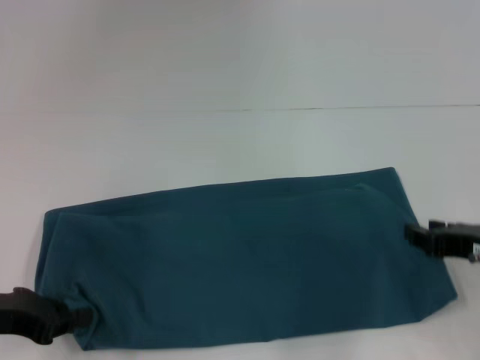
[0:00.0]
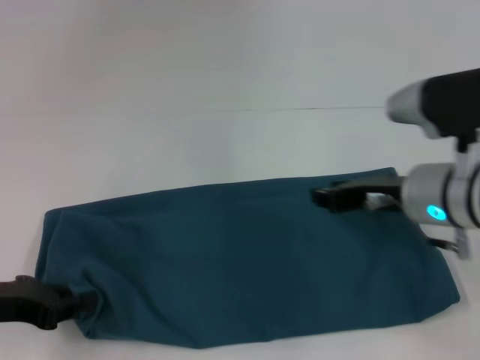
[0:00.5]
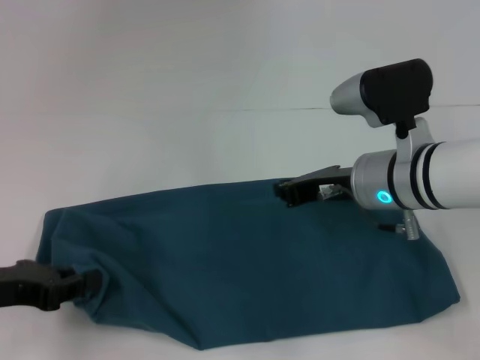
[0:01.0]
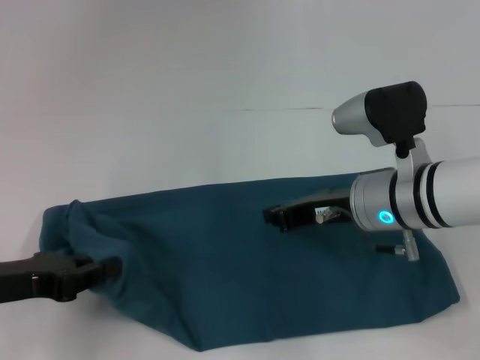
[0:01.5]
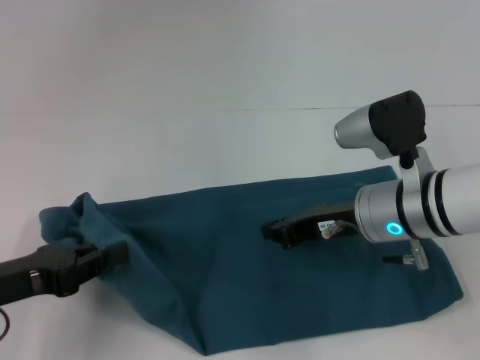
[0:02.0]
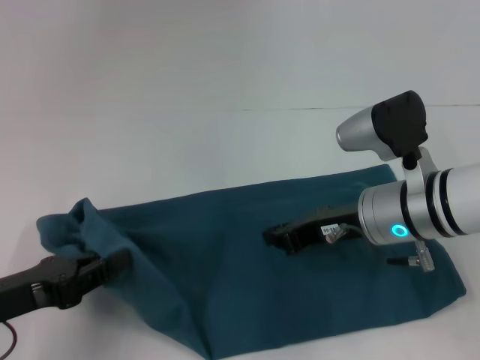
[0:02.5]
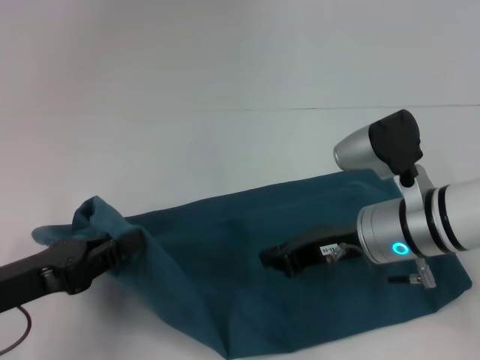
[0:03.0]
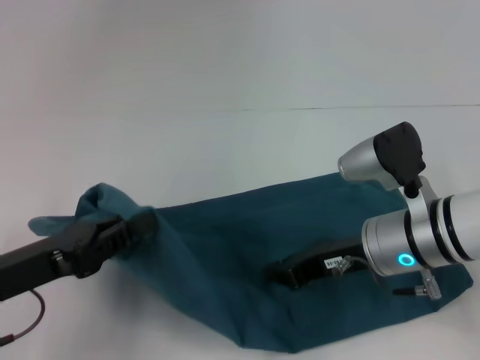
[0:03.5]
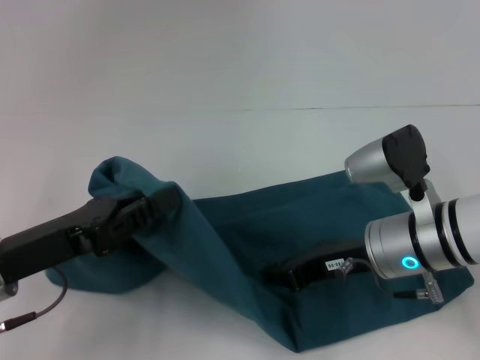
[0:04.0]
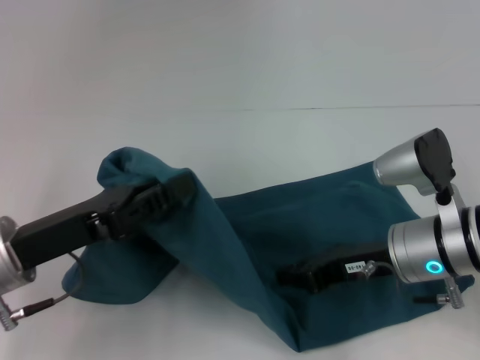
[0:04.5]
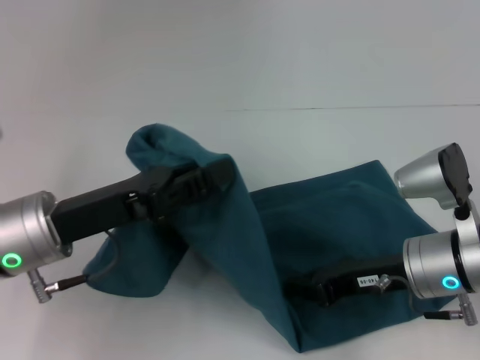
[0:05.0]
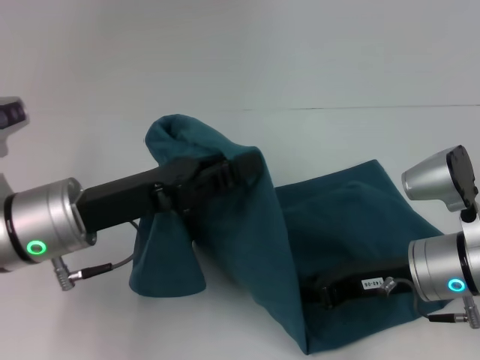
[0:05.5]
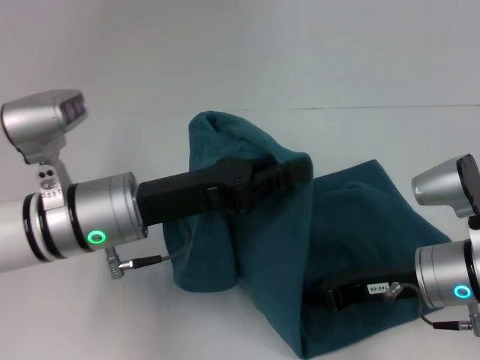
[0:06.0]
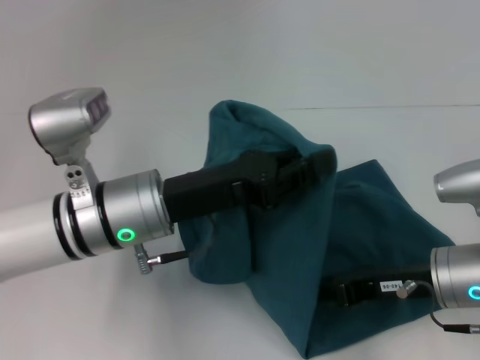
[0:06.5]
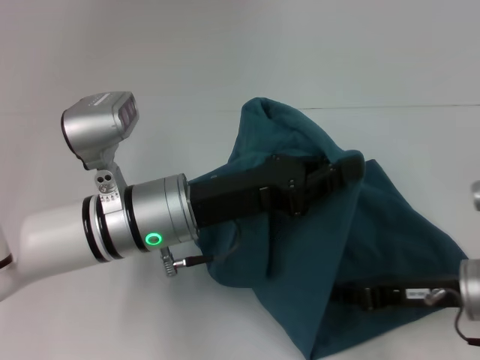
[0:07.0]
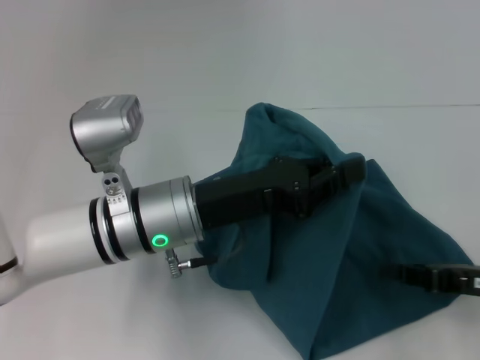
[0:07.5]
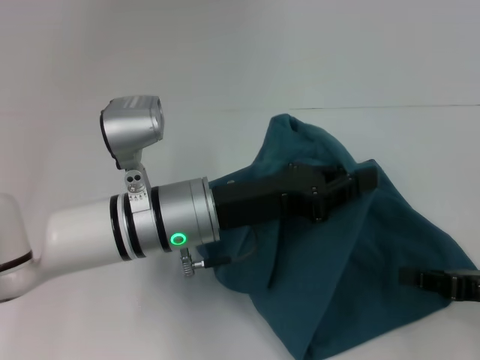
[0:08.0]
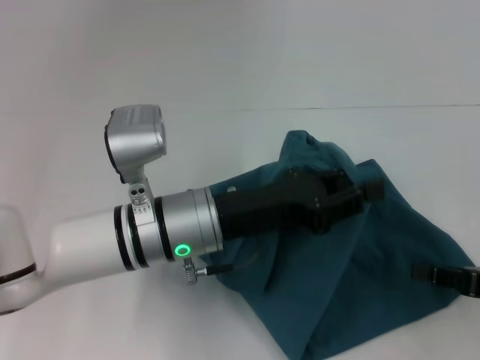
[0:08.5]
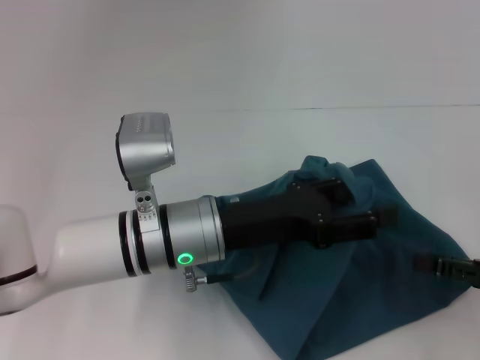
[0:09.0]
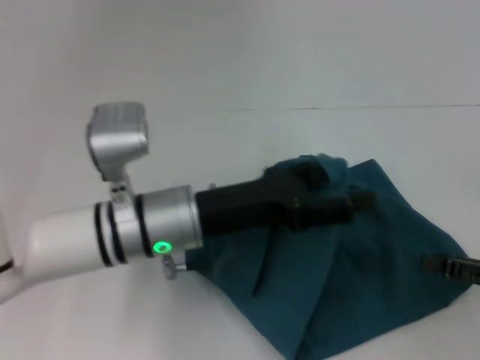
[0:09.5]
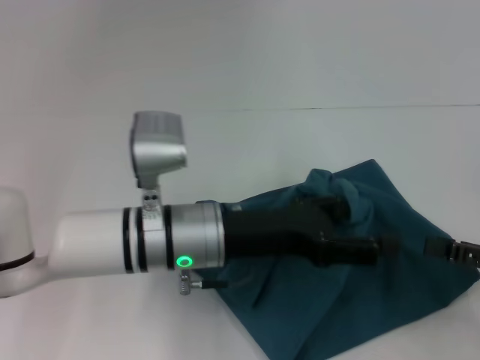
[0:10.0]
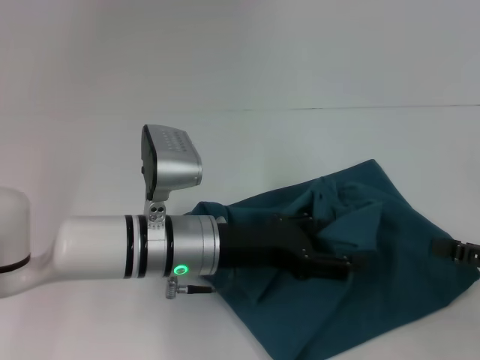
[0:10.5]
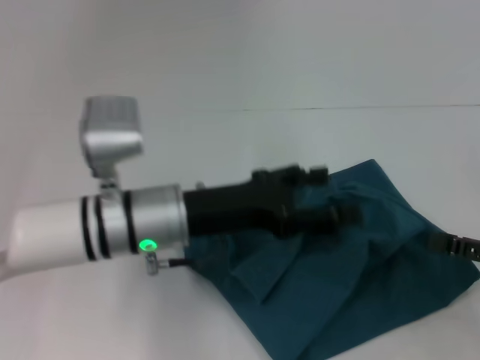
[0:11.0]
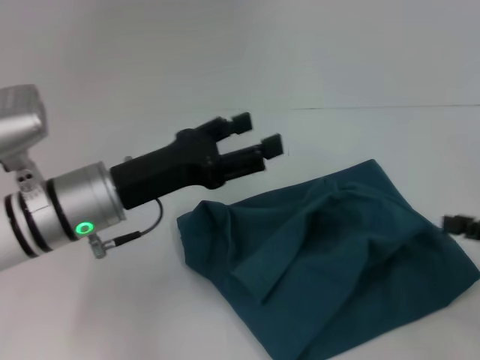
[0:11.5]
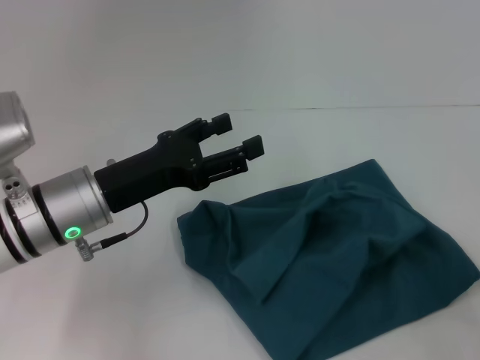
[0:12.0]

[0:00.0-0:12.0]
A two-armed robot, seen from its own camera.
Step, 0.5 to 7.0 s: Press the middle of the clothes with your right hand.
Step, 7.5 to 11.5 s: Fold the clothes to the left.
0.0 to 2.0 s: The right gripper shifts approximately 15 cm to the left and forward, and closes.
4.0 to 6.0 s: The right gripper shifts by roughly 5 cm, while the left gripper shifts roughly 10 cm to the right and forward.
6.0 to 8.0 s: The left gripper shifts some 5 cm to the right. Meanwhile the right gripper travels to the right by approximately 10 cm.
8.0 to 10.0 s: The right gripper opens up. The left gripper opens its fingers.
10.0 to 12.0 s: The left gripper heads to the left, covering some 10 cm, while the right gripper changes place by some 5 cm.

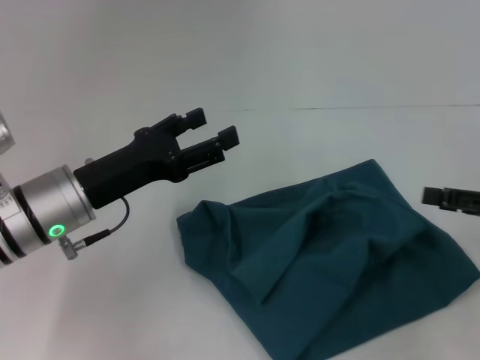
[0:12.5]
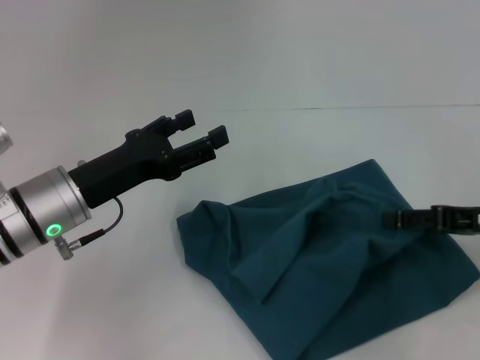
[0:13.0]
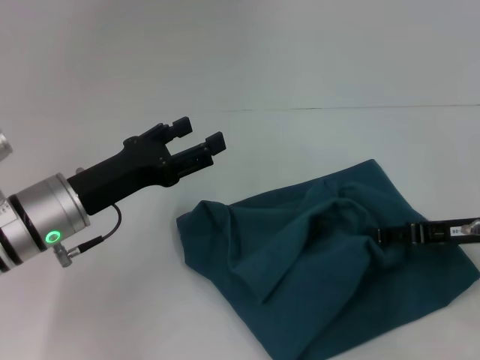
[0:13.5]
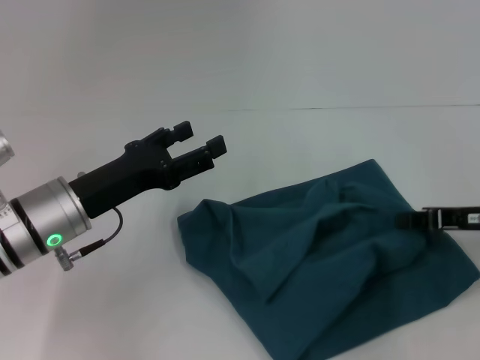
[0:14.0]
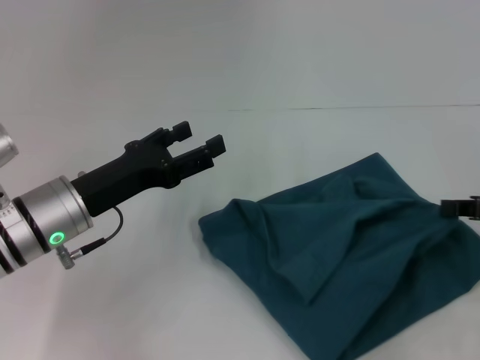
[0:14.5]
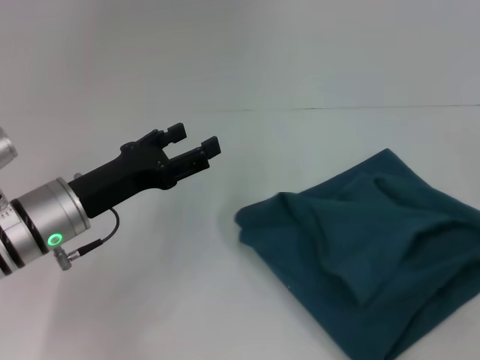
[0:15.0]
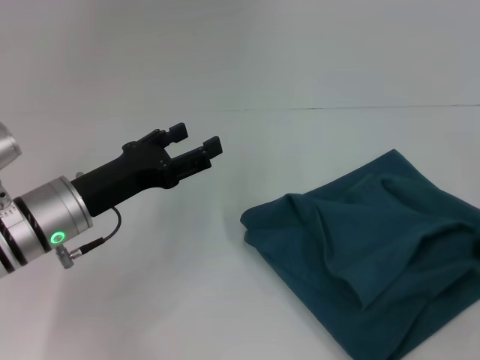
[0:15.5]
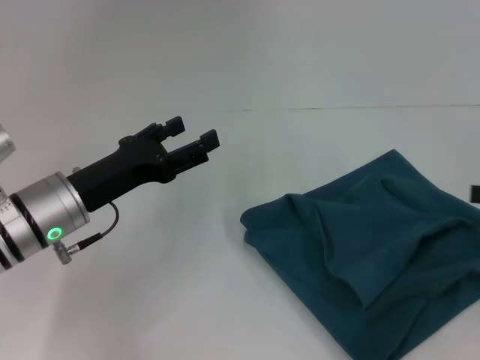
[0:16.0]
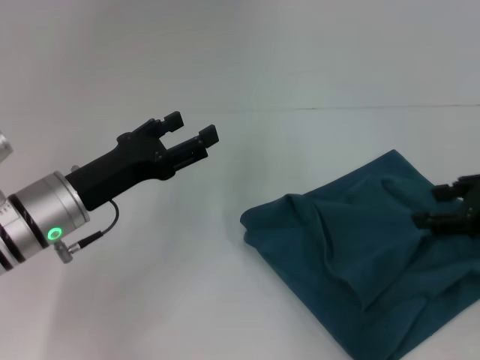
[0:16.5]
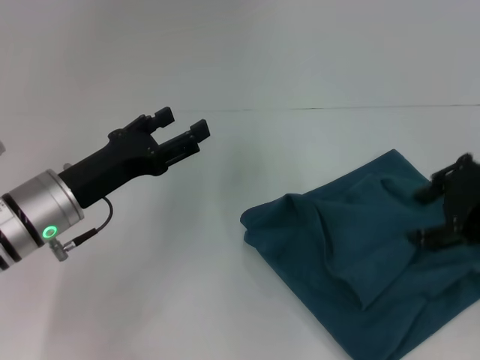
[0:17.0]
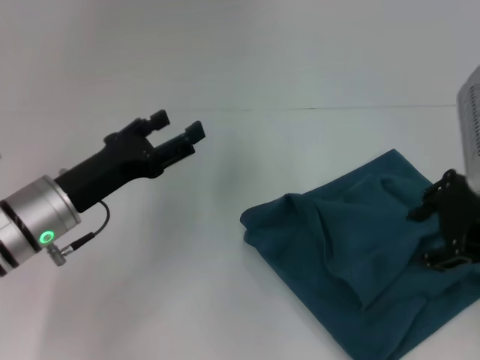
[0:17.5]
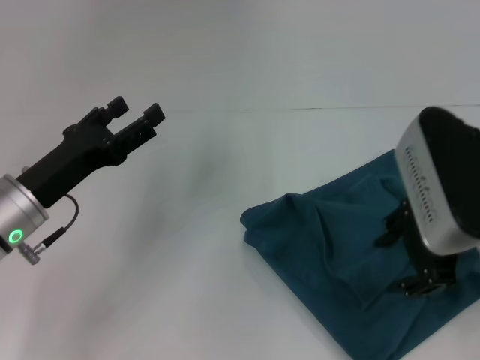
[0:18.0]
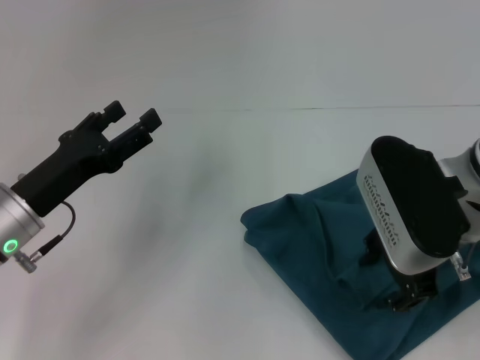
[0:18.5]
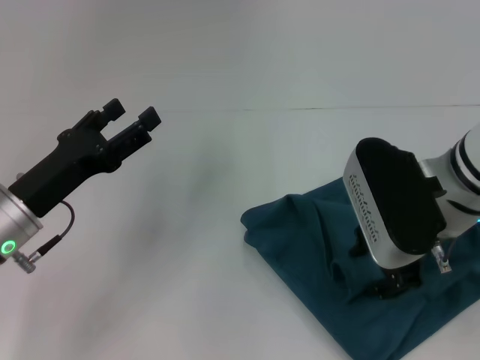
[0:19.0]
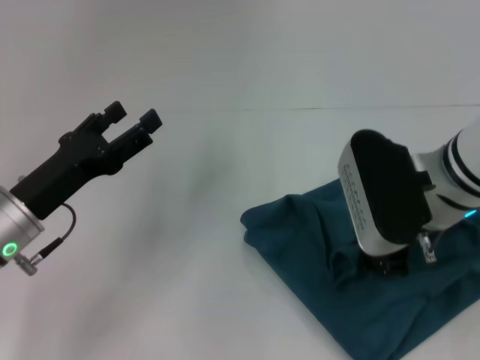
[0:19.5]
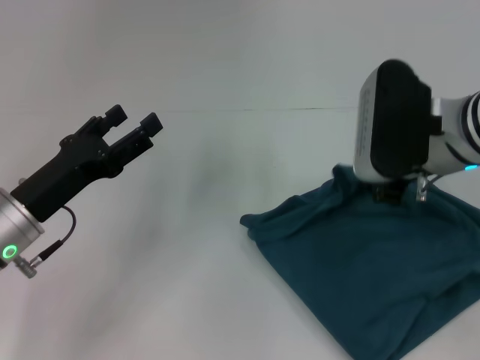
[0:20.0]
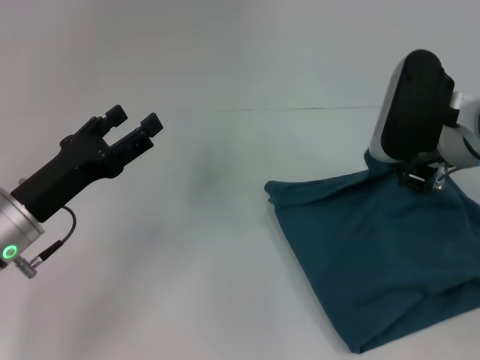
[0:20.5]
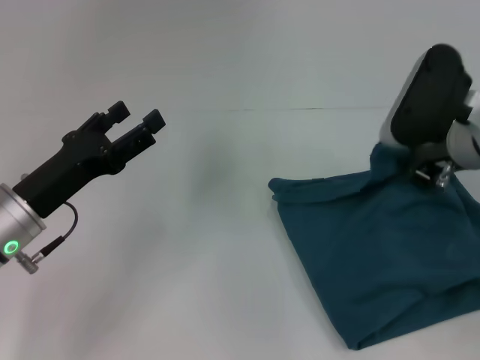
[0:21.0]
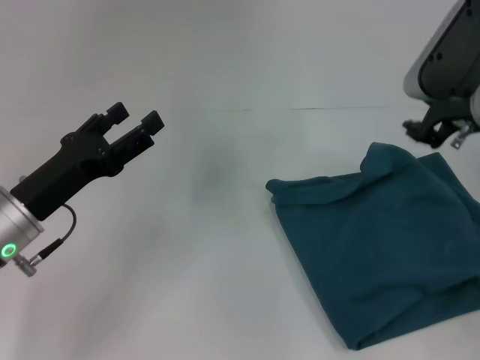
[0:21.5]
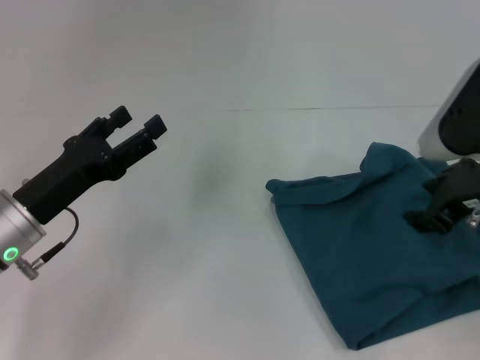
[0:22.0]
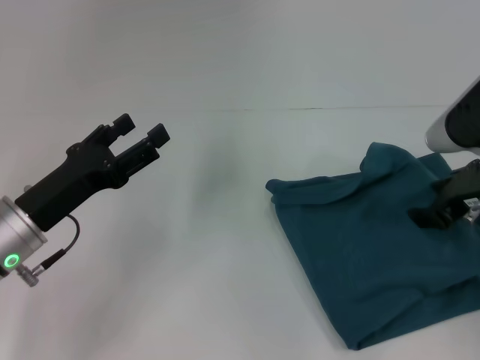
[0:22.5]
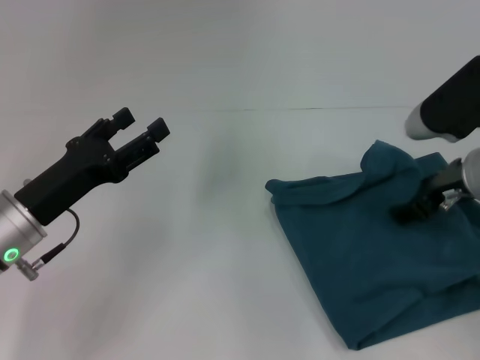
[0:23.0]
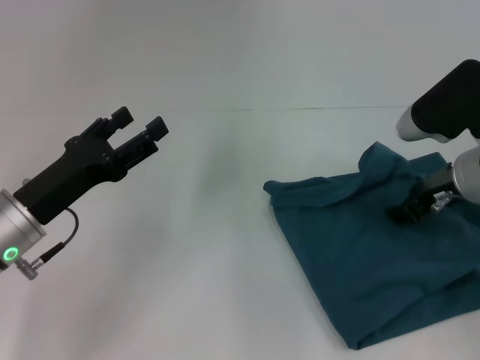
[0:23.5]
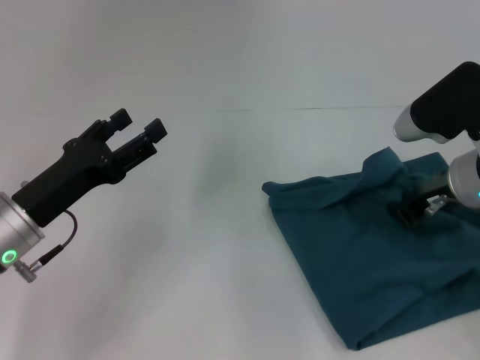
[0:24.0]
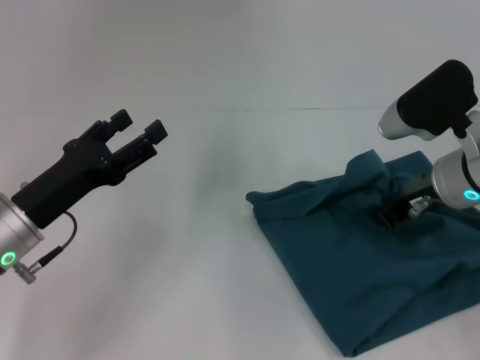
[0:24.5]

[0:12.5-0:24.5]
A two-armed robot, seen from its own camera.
12.5 to 14.5 s: The right gripper closes up.
14.5 to 16.5 s: The right gripper goes roughly 5 cm upward, and opens up.
16.5 to 18.5 s: The right gripper is displaced to the left by approximately 15 cm.
18.5 to 20.5 s: The right gripper moves forward, approximately 5 cm, and closes.
20.5 to 22.5 s: The right gripper ends up roughly 5 cm from where it was, and opens up.
22.5 to 24.5 s: The right gripper changes place by roughly 5 cm, and closes up.

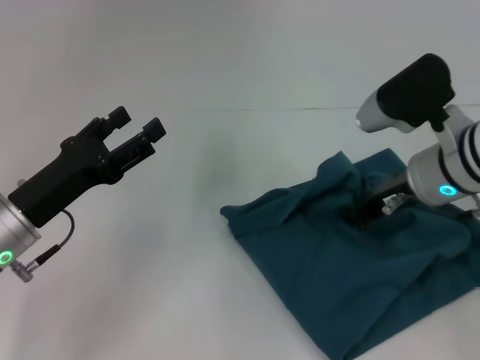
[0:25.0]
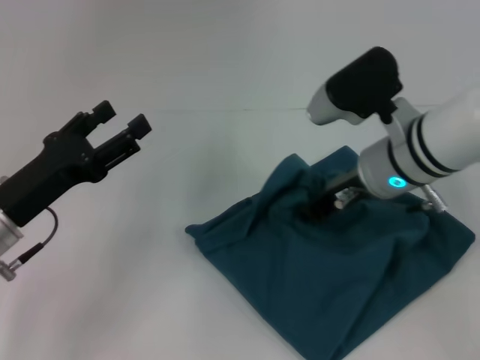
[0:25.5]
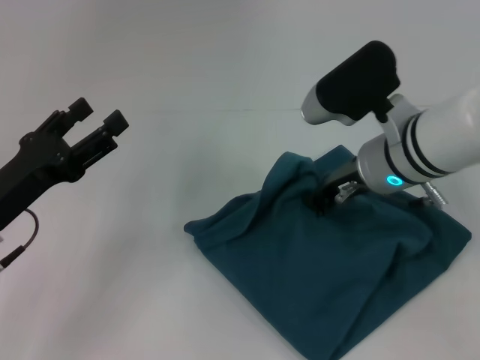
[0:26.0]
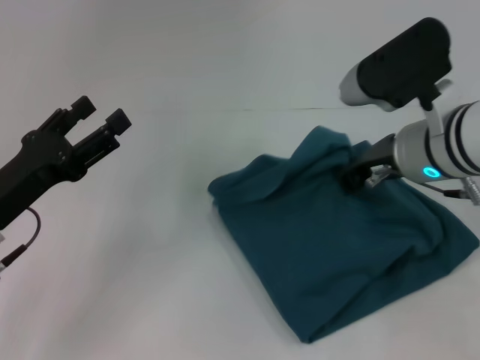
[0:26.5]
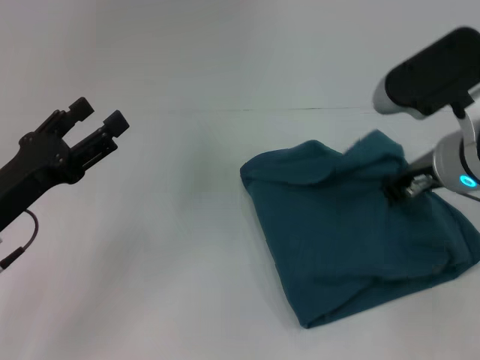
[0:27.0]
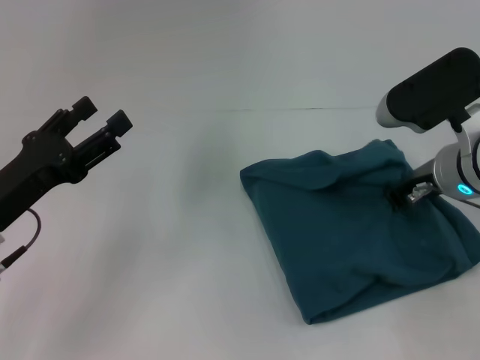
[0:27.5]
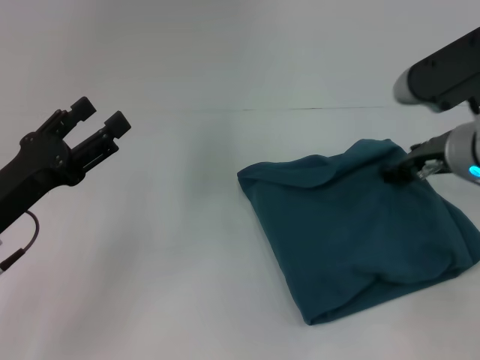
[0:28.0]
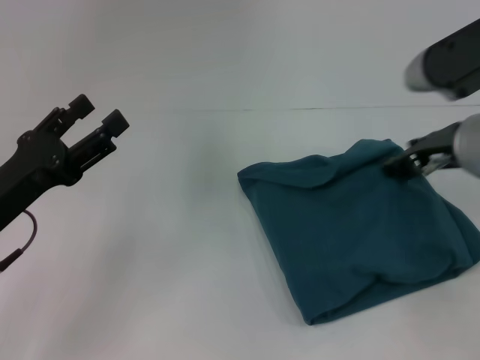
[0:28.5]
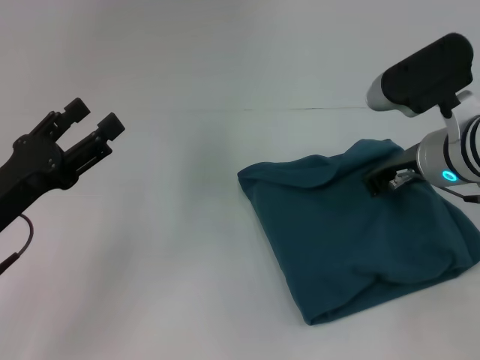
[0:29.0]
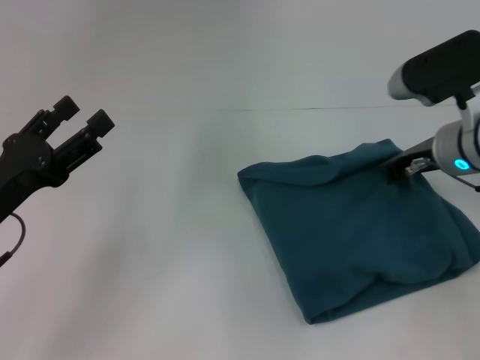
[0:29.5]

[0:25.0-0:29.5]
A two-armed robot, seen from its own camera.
27.0 to 29.5 s: The right gripper shifts by about 5 cm, and opens, then closes again.
